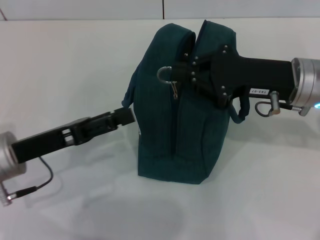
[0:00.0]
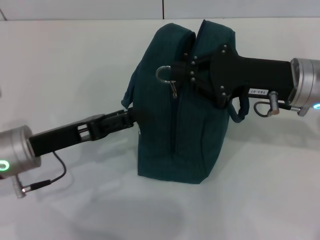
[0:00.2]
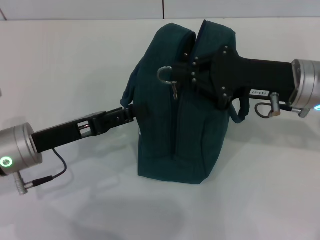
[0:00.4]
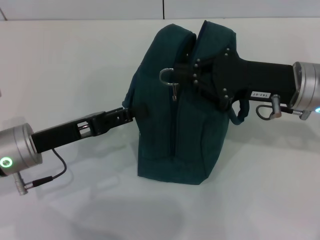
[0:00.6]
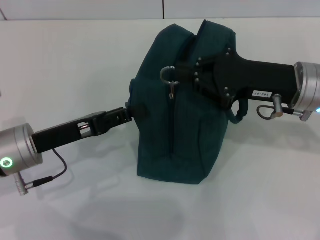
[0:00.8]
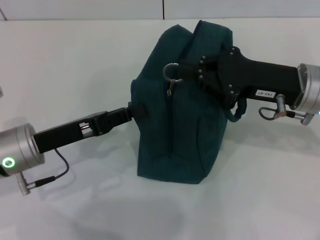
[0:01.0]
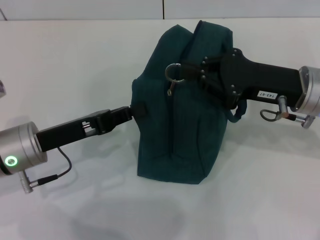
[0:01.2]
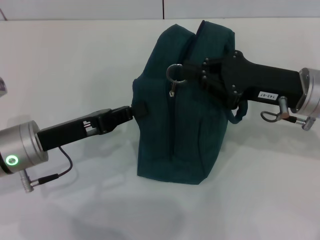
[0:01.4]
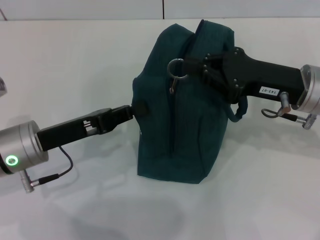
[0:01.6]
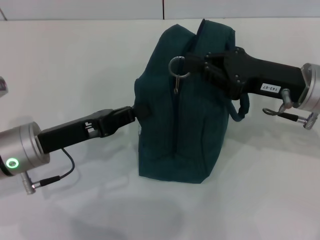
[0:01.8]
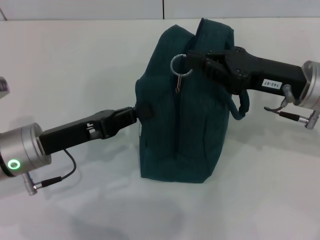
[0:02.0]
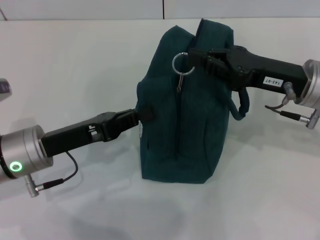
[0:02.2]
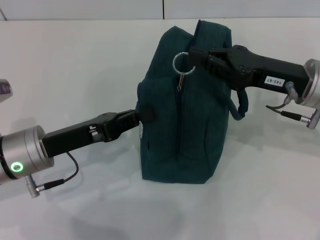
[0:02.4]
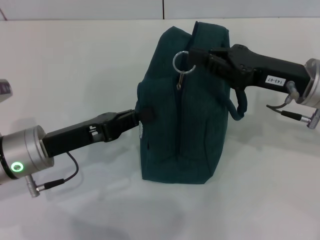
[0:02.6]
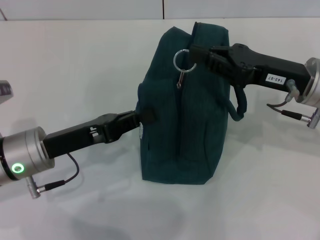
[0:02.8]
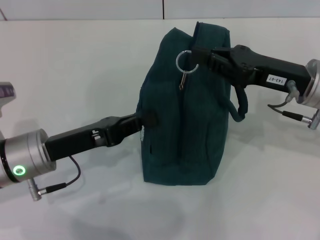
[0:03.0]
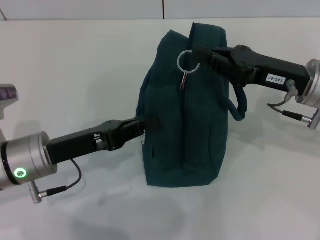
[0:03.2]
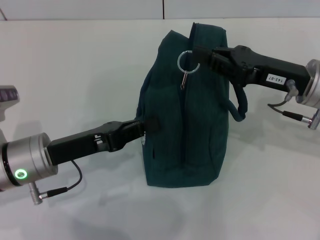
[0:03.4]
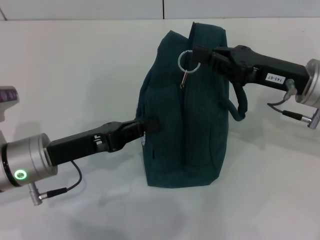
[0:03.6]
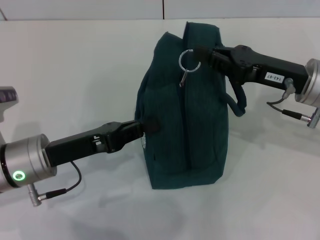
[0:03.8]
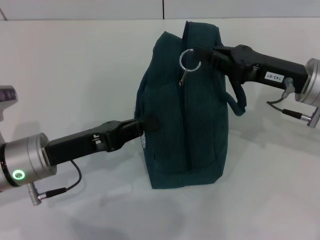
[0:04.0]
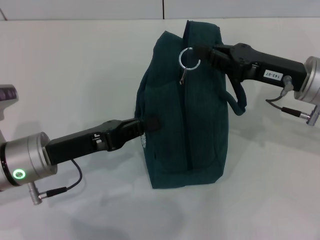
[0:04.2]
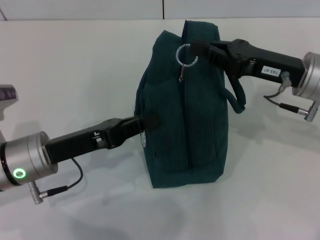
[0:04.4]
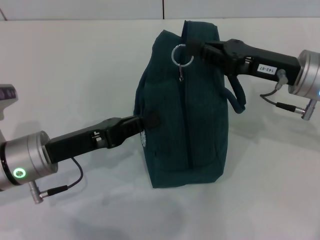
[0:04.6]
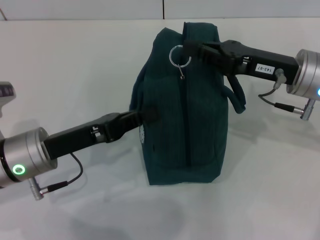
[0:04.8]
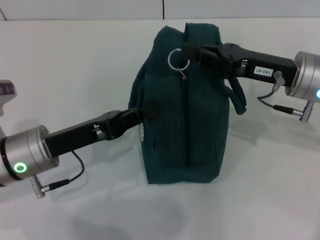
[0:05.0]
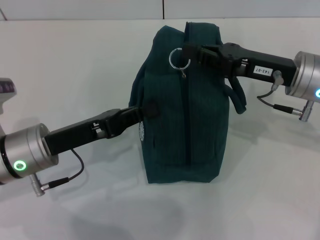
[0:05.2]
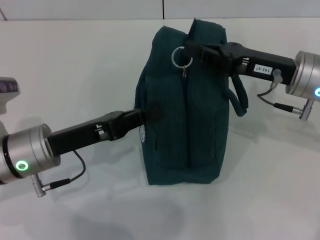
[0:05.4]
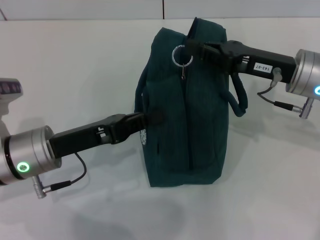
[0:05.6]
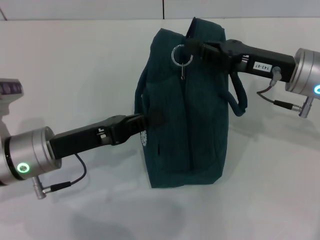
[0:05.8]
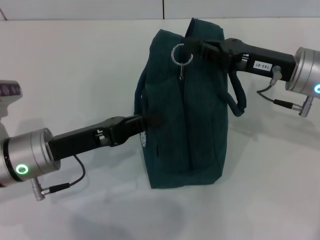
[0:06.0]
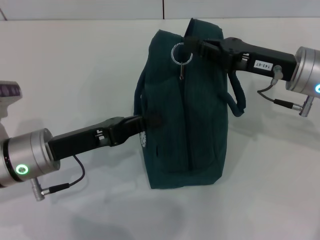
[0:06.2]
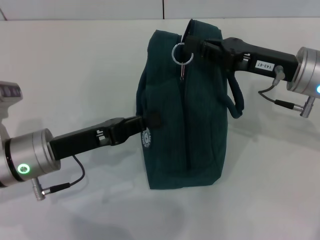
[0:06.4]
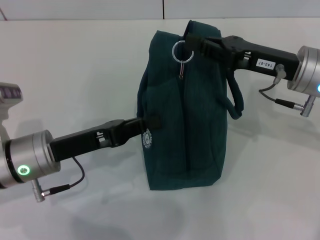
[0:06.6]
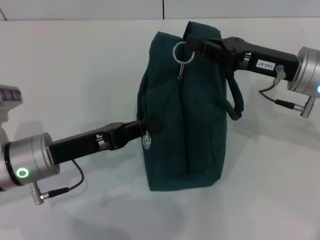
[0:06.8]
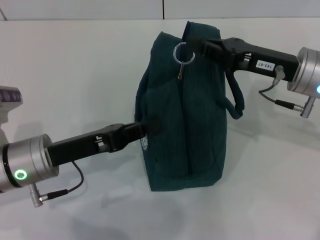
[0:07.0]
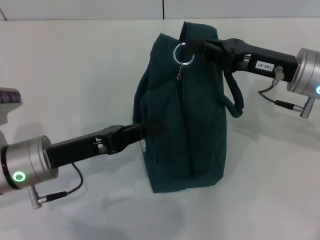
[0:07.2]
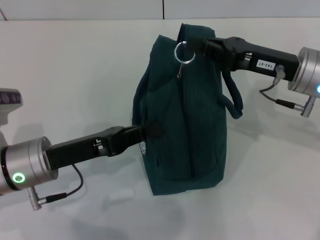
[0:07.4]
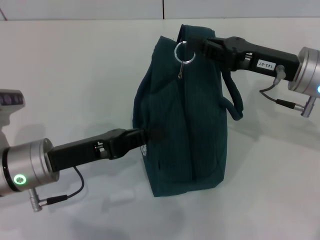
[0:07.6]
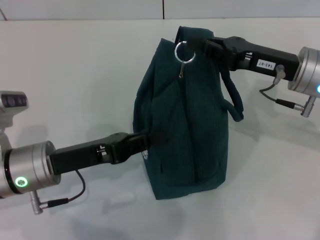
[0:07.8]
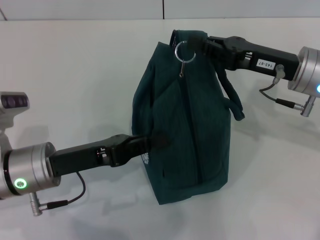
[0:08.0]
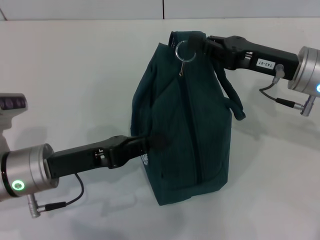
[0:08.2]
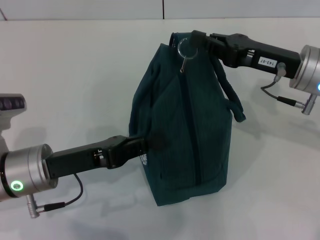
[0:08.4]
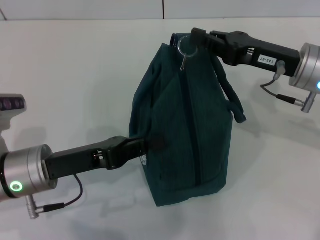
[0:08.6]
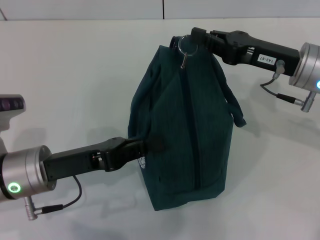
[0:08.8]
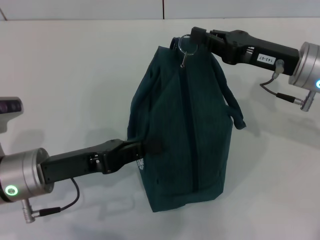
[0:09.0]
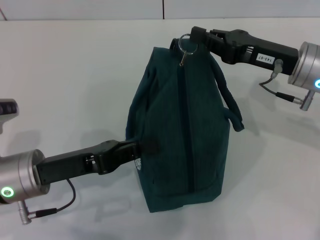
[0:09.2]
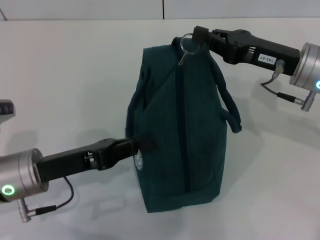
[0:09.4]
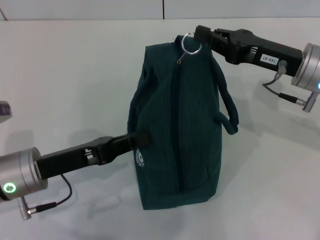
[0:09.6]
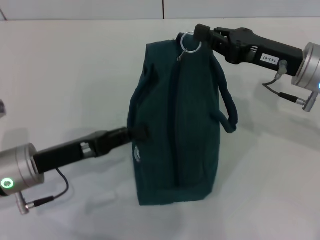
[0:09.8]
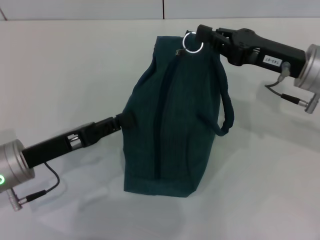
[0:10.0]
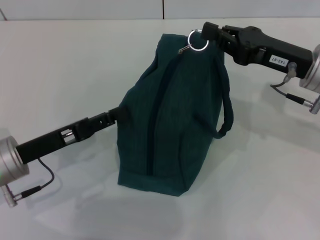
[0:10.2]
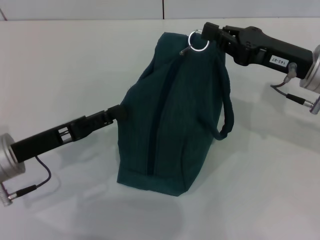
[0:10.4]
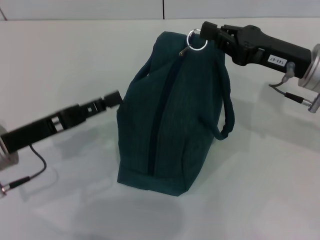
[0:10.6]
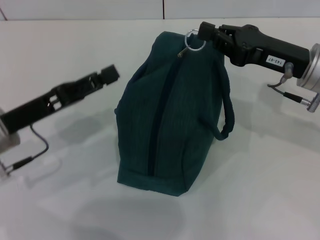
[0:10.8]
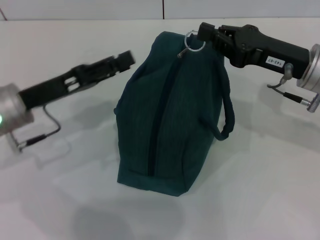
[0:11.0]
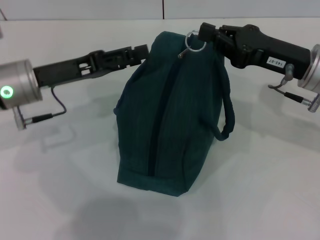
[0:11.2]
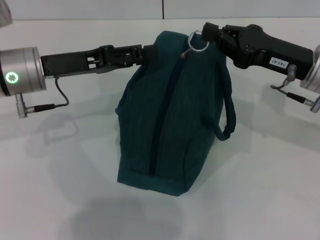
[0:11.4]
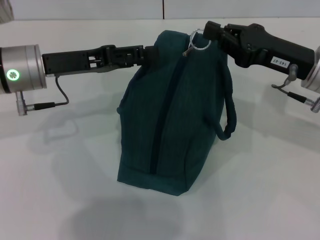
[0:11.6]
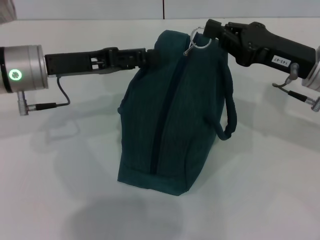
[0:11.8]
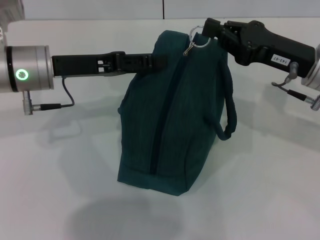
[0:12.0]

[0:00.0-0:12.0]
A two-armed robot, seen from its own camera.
0:00.0 to 0:01.6: The left gripper closes.
0:01.6 to 0:03.0: The grippers move only a little.
0:03.0 to 0:04.4: The two grippers keep their place.
0:04.4 to 0:07.6: Both grippers stay put.
0:07.6 to 0:09.0: Both grippers stay about where they are.
0:09.0 to 0:10.4: The left gripper opens its fingers.
0:10.4 to 0:12.0: The left gripper is displaced forward and upward by approximately 15 cm.

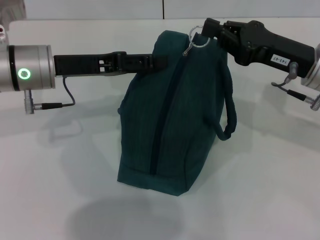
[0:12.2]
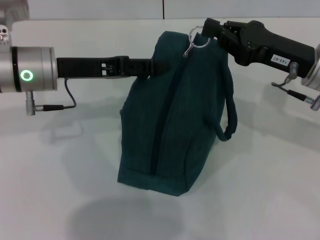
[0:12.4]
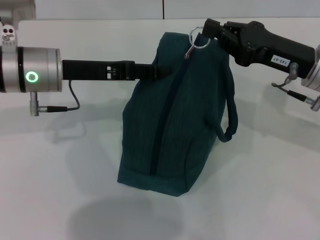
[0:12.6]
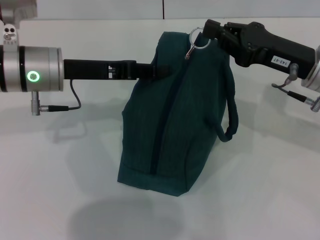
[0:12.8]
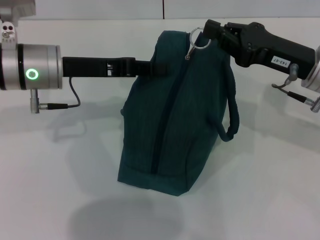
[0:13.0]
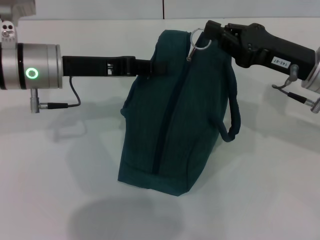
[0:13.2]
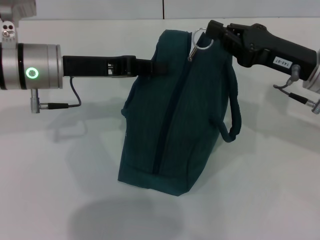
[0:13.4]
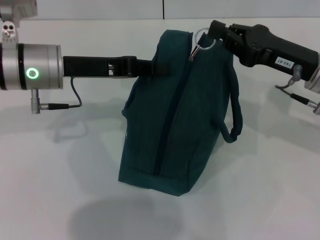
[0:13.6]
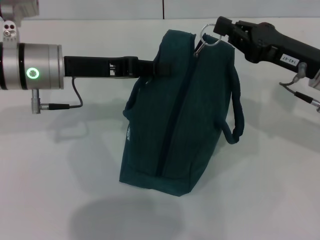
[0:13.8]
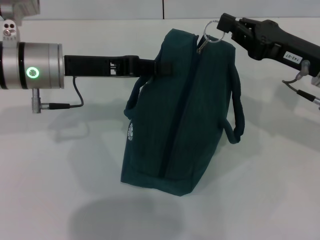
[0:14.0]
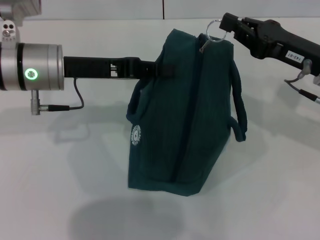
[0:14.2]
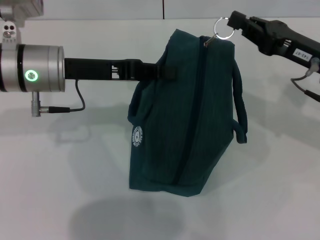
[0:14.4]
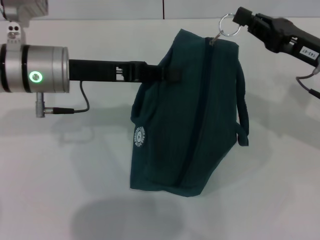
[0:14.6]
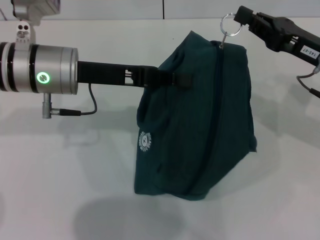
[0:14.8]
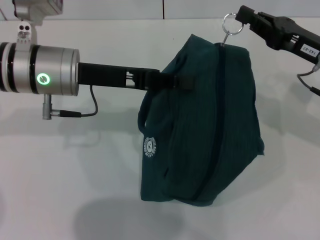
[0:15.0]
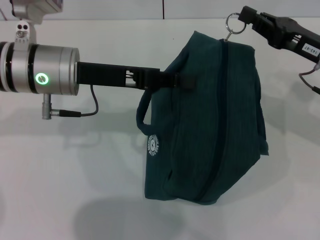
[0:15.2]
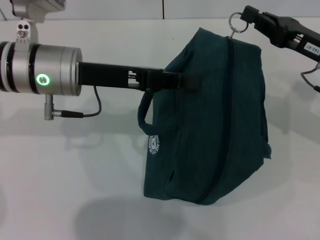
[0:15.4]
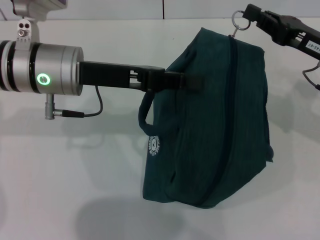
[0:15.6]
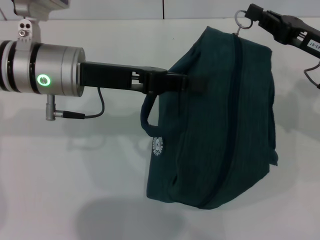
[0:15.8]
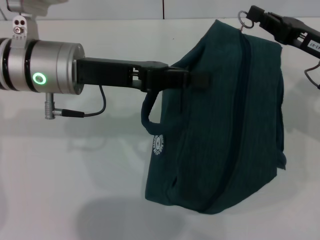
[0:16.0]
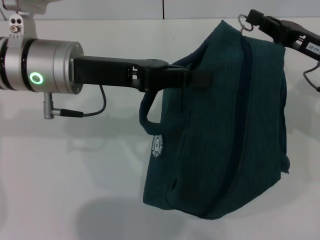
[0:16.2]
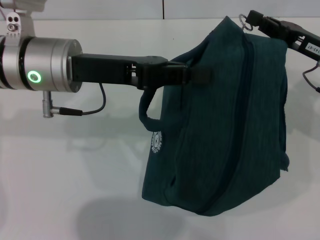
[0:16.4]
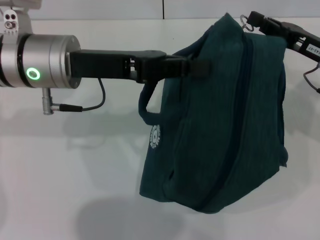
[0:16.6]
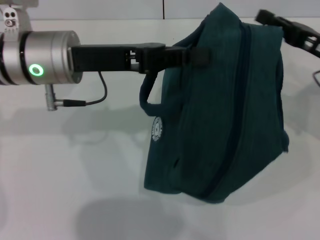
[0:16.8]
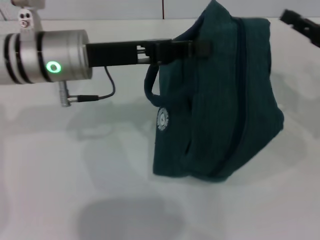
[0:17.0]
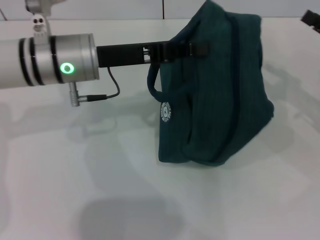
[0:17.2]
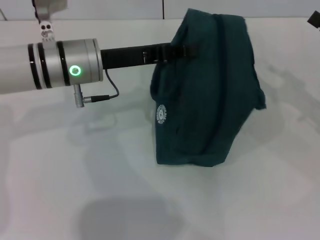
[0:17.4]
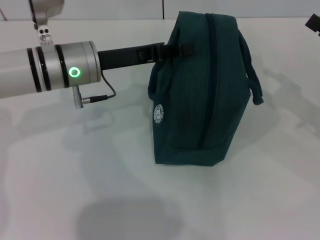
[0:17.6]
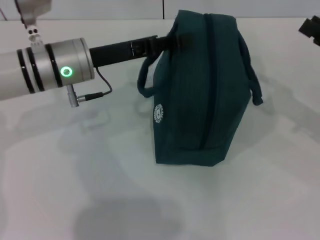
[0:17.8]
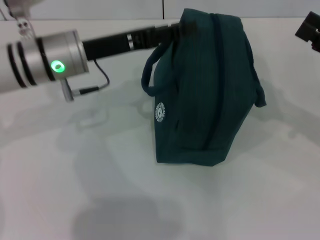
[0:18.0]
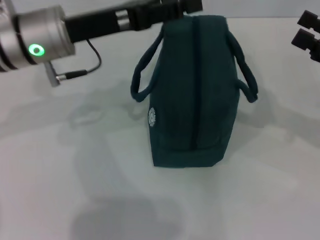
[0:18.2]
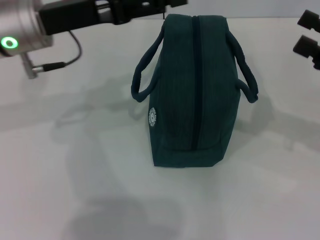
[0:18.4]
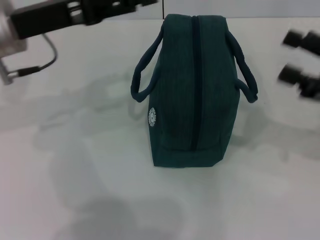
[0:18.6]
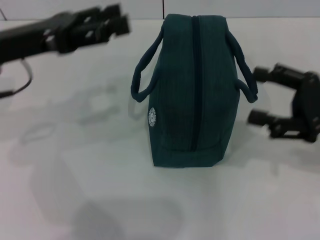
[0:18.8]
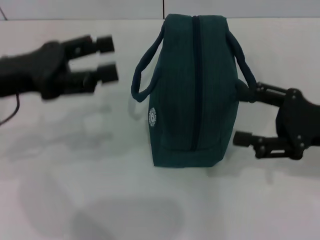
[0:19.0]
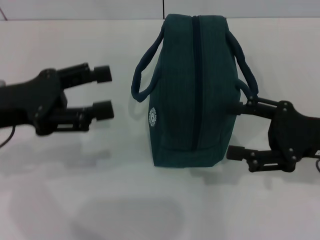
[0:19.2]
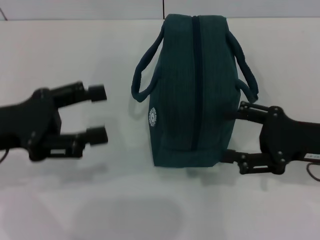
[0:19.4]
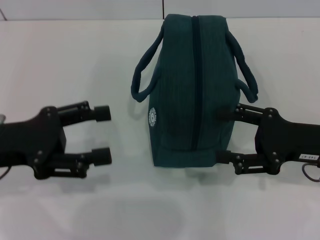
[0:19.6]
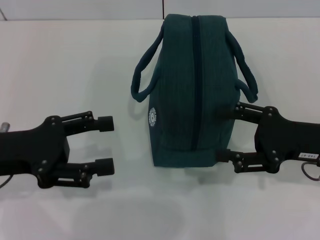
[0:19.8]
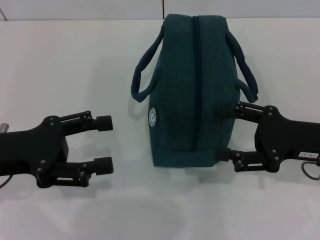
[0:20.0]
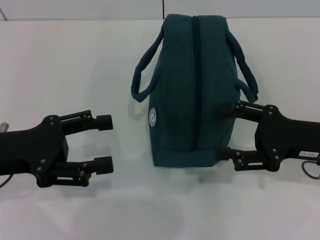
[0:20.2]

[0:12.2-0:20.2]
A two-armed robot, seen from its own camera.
Step, 0:12.2 to 0:16.8: Zip up the lunch bag with your right hand.
Step, 0:17.0 to 0:18.2: Hold the lunch bag with your left hand.
0:12.2 to 0:13.8: The left gripper closes its fingers.
0:15.4 to 0:17.0: The right gripper is displaced to the right by about 5 cm.
0:17.0 to 0:18.6: The left gripper heads to the left, covering approximately 5 cm, and opens its fingers, while the right gripper shifts about 5 cm backward, and opens up.
0:18.6 to 0:20.2: The right gripper travels to the left by roughly 5 cm; the left gripper moves backward, downward and to the left, roughly 15 cm.

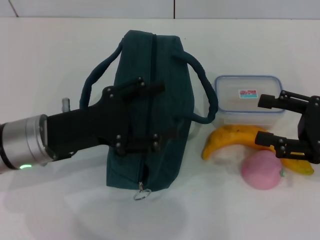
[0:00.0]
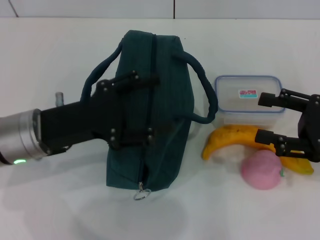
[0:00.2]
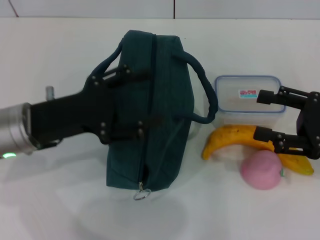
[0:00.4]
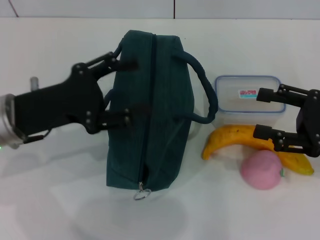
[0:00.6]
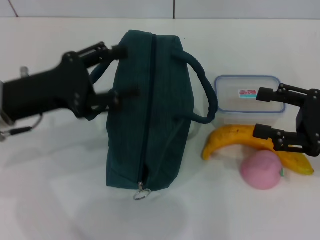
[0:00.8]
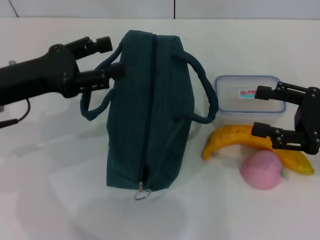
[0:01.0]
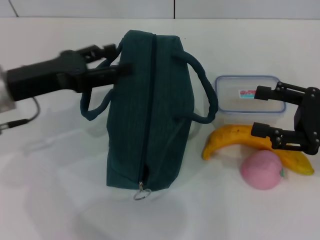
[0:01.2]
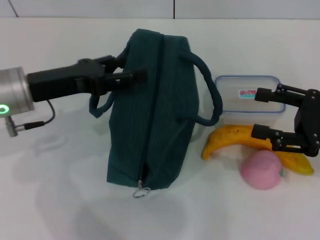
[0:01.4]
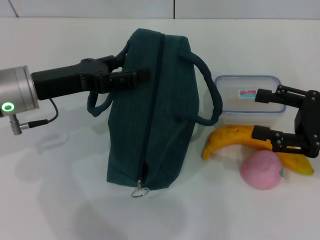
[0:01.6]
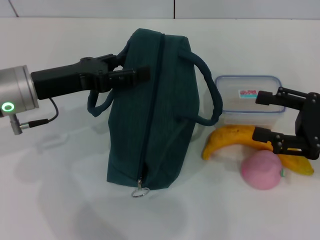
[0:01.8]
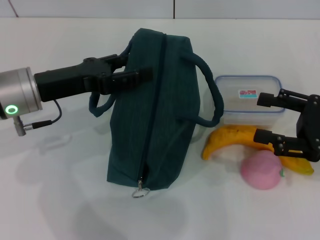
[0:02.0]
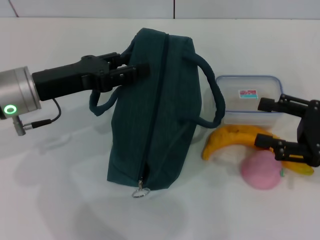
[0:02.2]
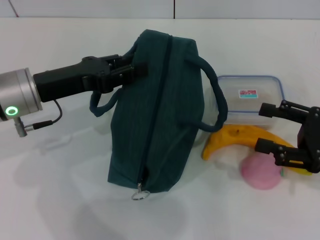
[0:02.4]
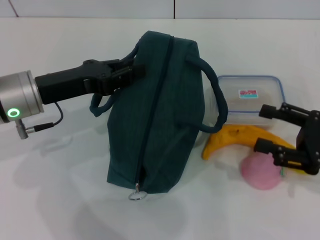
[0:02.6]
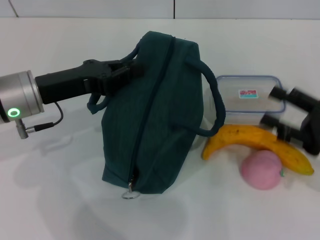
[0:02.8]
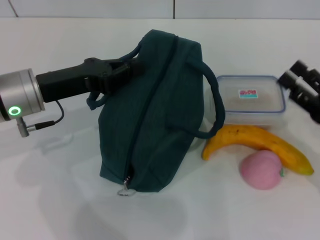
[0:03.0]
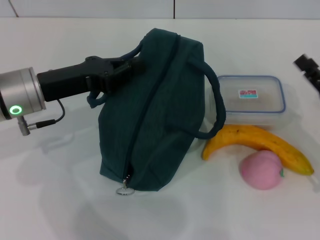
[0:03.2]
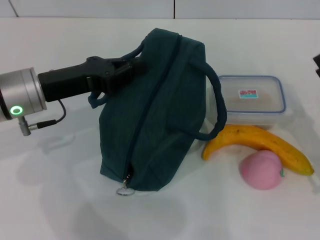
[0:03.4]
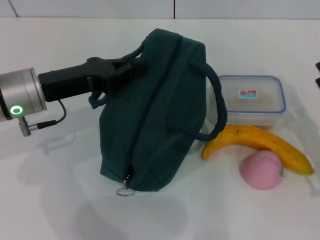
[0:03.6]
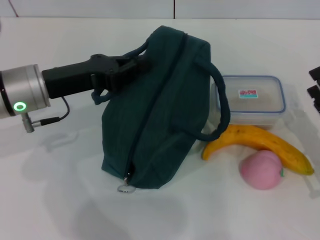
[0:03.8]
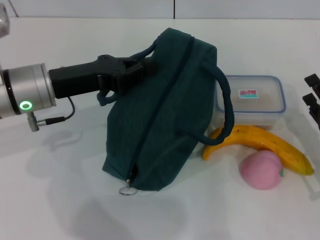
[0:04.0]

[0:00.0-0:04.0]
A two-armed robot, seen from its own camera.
0:00.0 to 0:01.4: The left gripper is displaced forward by approximately 5 cm.
0:01.4 to 0:02.6: The left gripper closes its fingers.
0:02.6 to 0:04.0: The right gripper is displaced downward by approximately 10 cm; the left gripper closes up.
